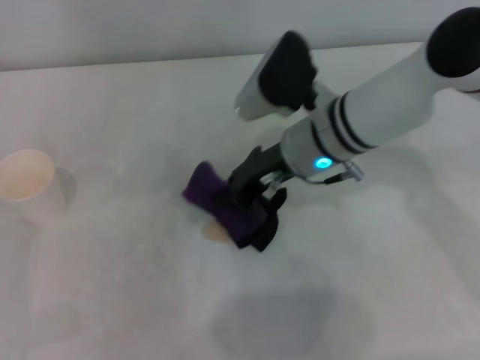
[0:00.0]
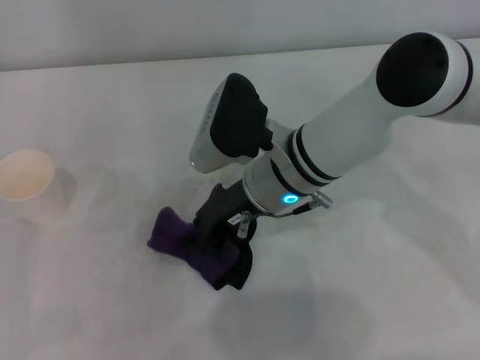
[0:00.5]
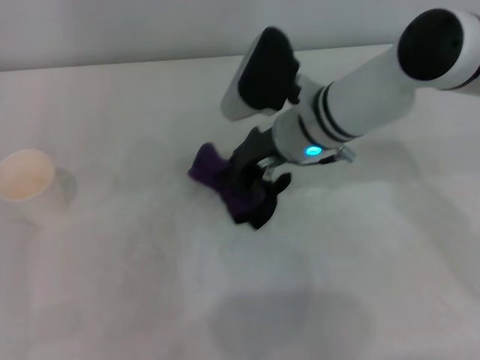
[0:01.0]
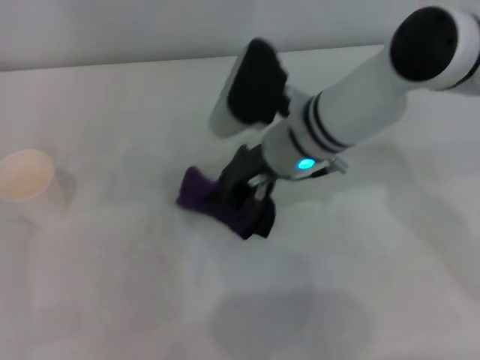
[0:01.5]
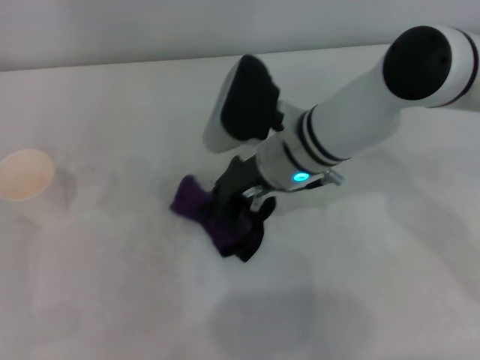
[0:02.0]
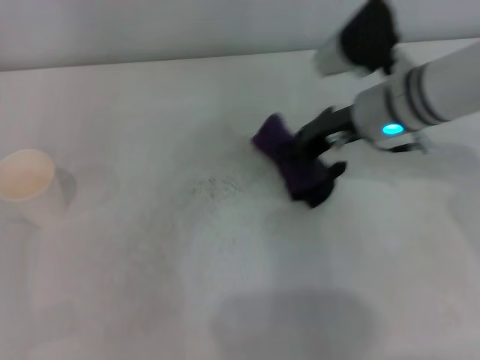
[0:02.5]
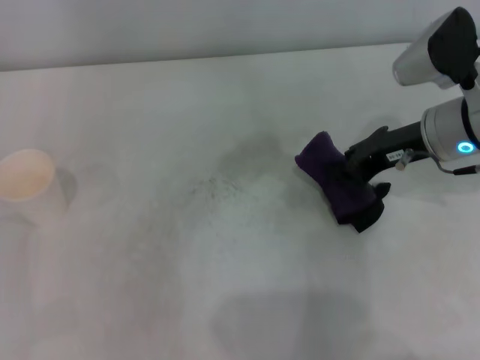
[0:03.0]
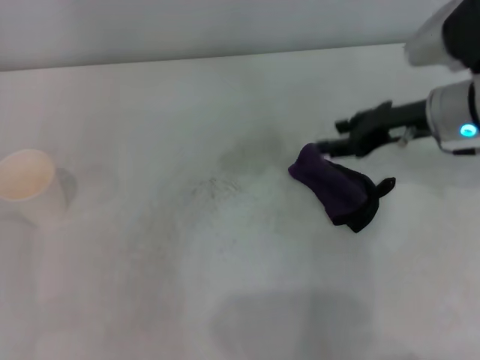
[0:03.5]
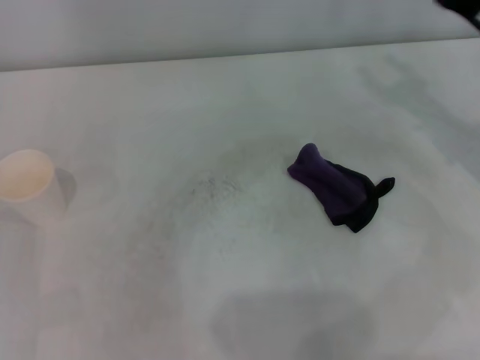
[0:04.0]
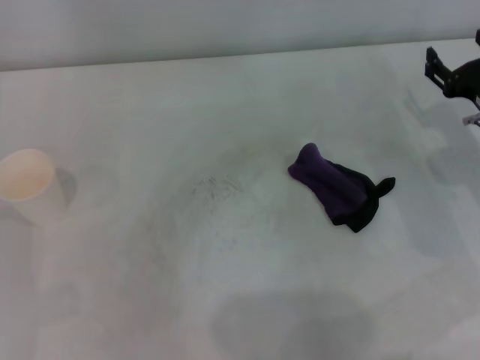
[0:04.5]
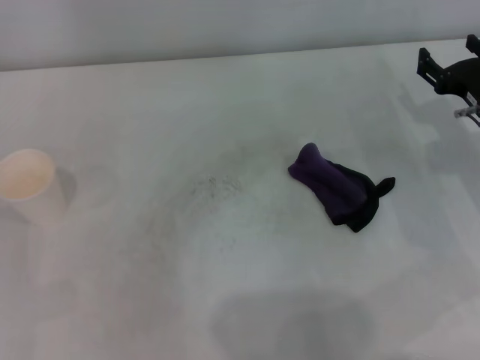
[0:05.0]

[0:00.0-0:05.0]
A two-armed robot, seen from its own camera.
Step, 0:00.0 to 0:02.0: Wipe the stains off the table with the right gripper.
Step, 0:02.5 to 0:03.0: Place the rag on the table with the right gripper.
0:00.0 to 0:02.5: The right gripper moves to the right, some 10 cm.
0:02.5 to 0:05.0: The right gripper is displaced to the right and downward by some 15 cm, and opens up.

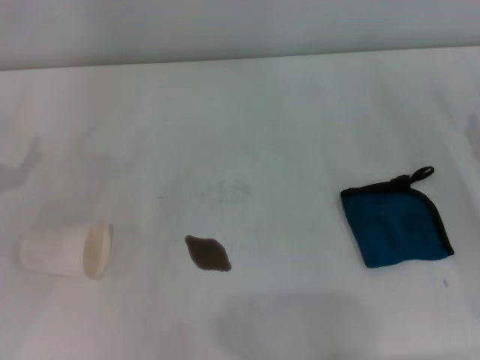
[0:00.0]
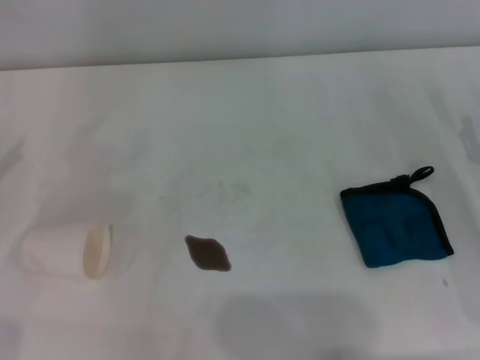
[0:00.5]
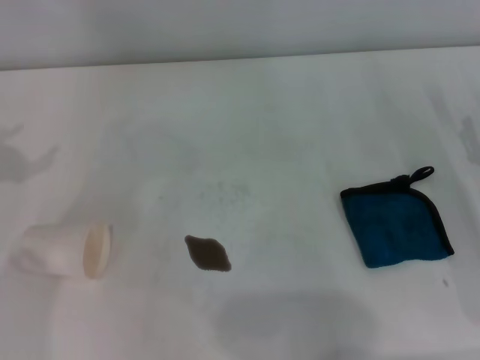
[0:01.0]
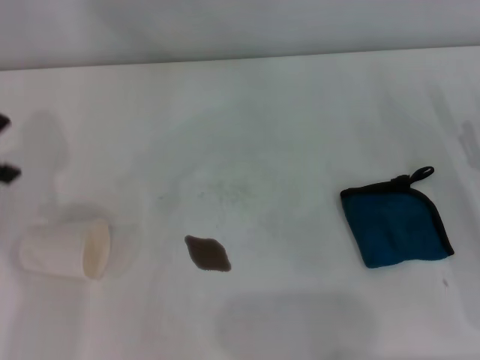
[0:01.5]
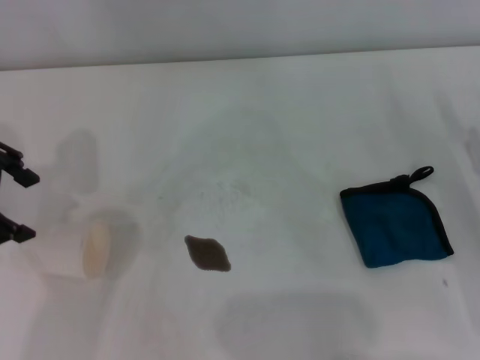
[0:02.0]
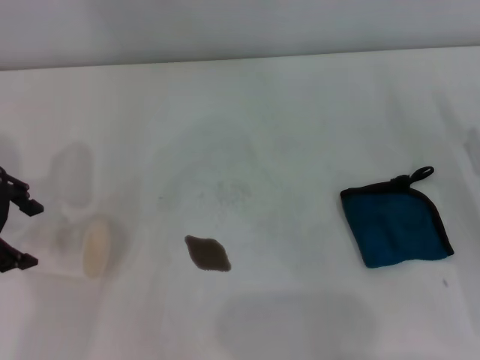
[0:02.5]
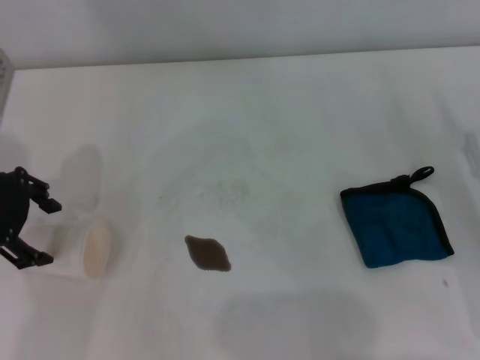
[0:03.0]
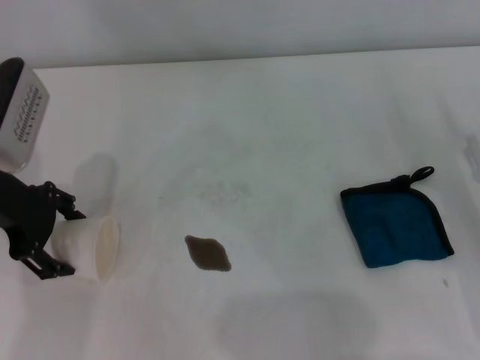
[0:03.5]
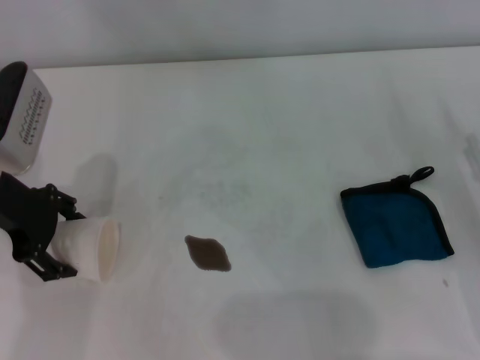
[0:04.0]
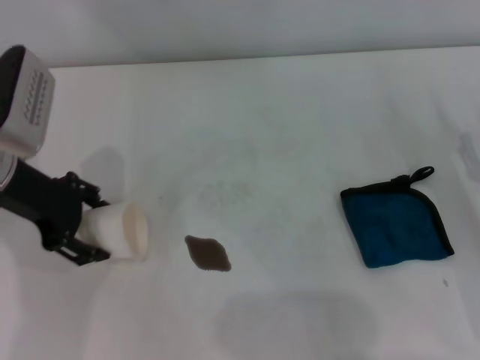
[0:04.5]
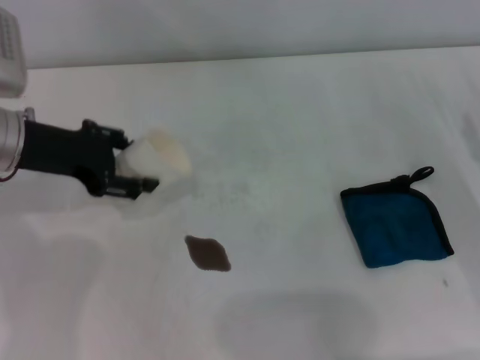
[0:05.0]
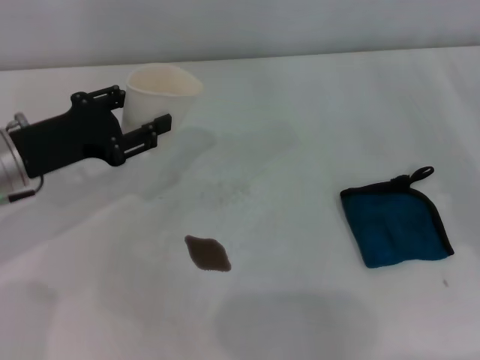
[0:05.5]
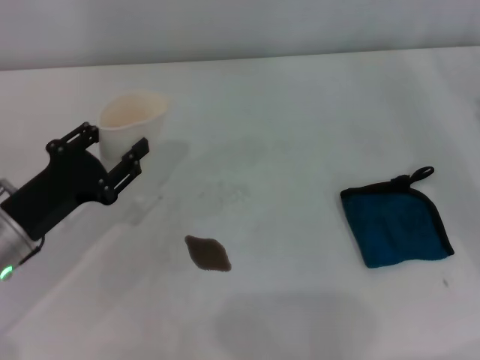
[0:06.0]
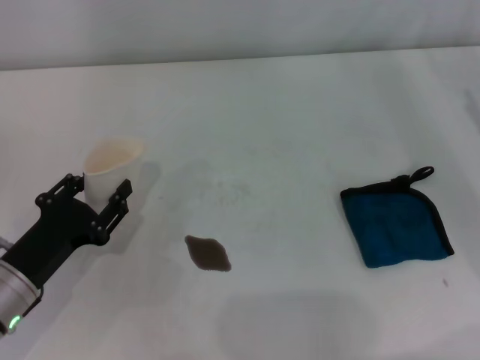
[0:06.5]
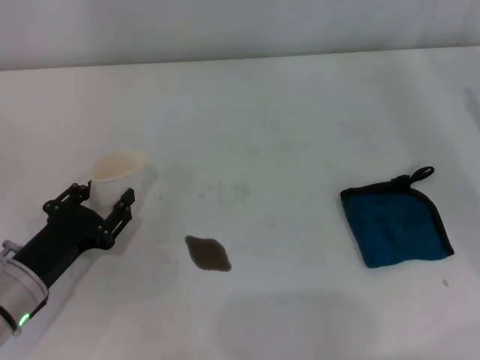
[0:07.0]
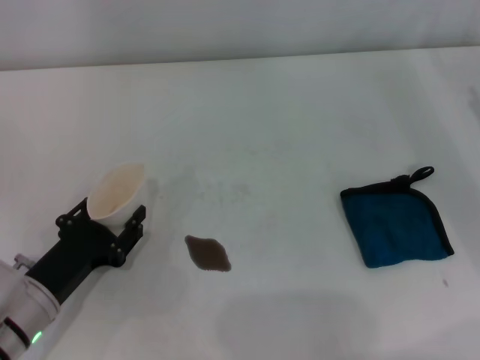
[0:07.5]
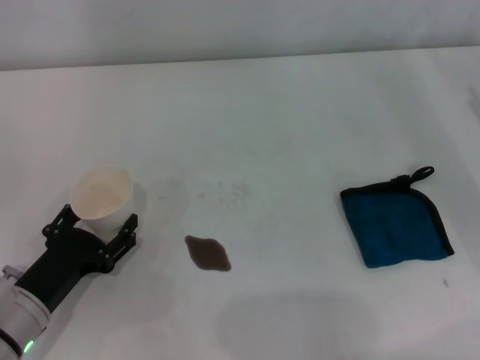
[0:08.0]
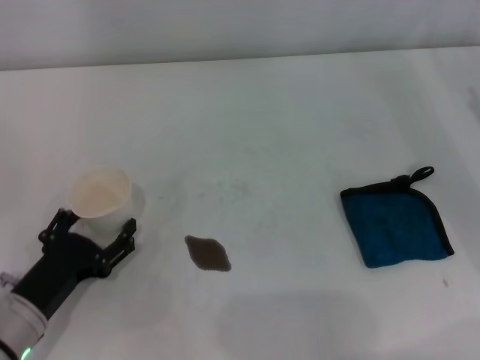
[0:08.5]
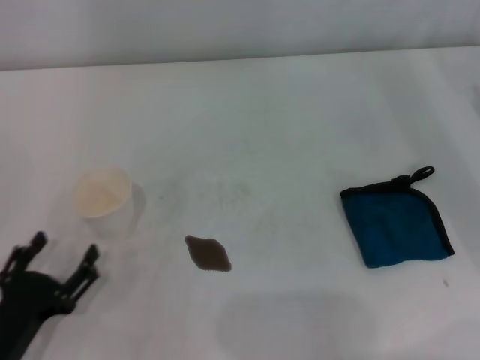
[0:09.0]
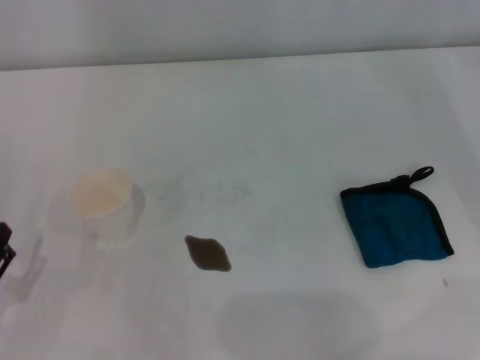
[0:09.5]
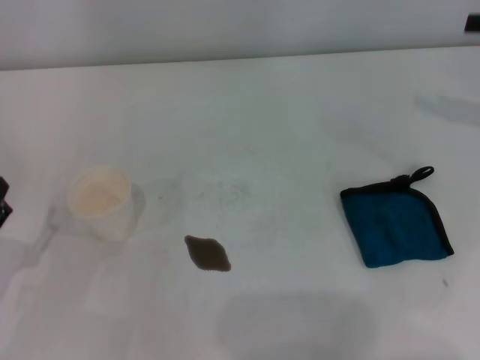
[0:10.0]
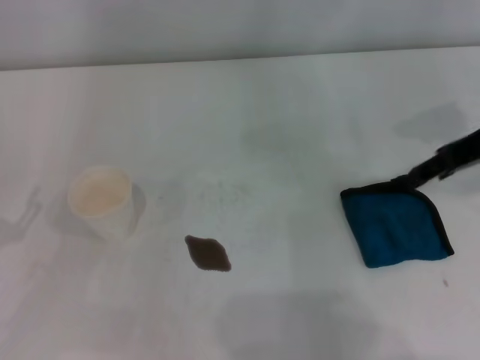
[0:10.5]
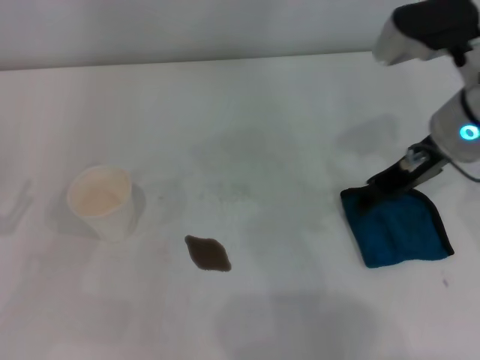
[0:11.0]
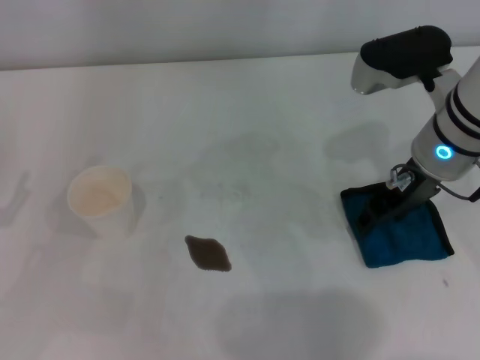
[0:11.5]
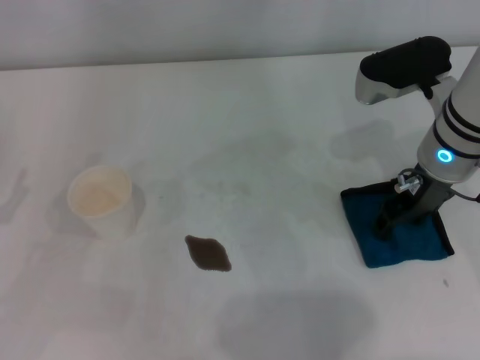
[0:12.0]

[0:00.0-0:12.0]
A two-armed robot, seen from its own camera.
Step, 0:00.0 to 0:03.0: Grasp the paper cup with the left gripper.
Step, 0:03.5 to 0:08.5: Stand the paper cup upright with the left gripper.
0:00.0 to 0:02.0: The left gripper travels upward, forward and to the right by about 20 cm.
0:02.0 to 0:04.0: The left gripper is displaced downward by roughly 10 cm.
0:04.0 to 0:06.0: The left gripper shifts about 15 cm backward and downward, and closes up.
0:06.0 to 0:08.0: The left gripper is displaced downward and backward by some 10 cm.
0:08.0 to 0:10.0: The left gripper goes about 5 cm to the left, and opens its fingers.
0:10.0 to 0:12.0: The right gripper is displaced to the left by some 20 cm.

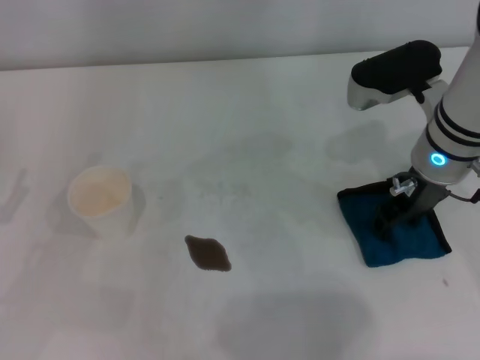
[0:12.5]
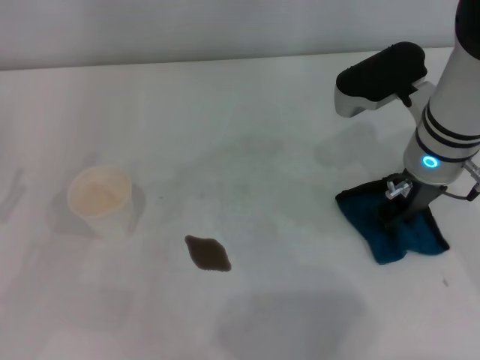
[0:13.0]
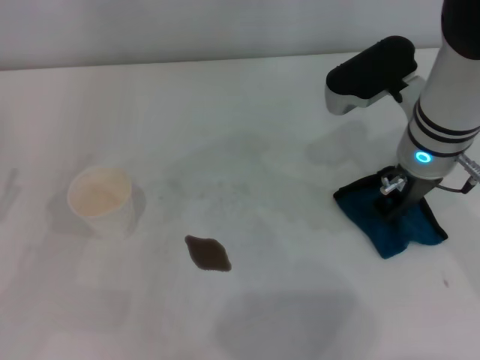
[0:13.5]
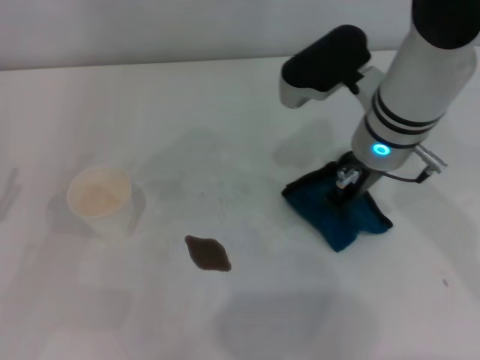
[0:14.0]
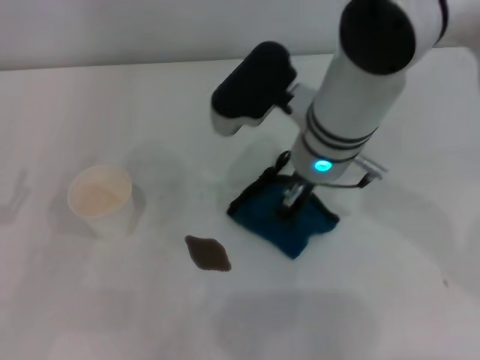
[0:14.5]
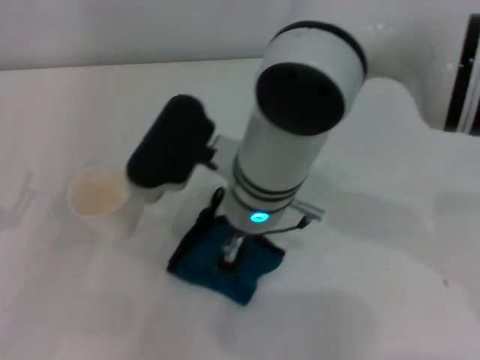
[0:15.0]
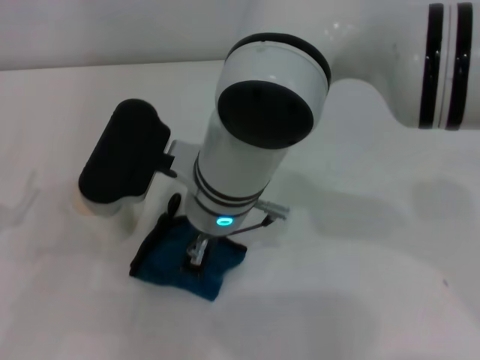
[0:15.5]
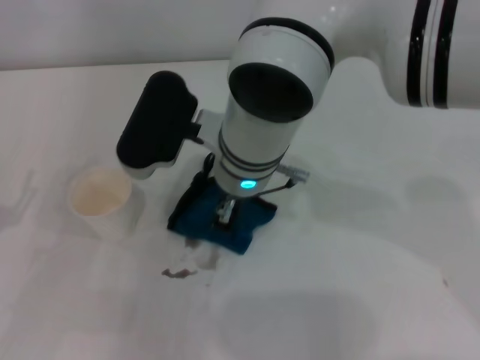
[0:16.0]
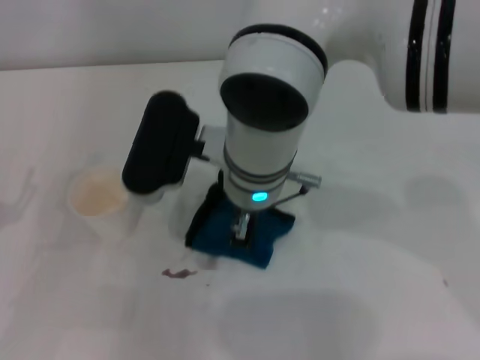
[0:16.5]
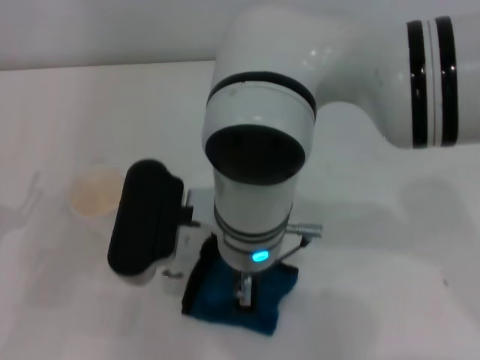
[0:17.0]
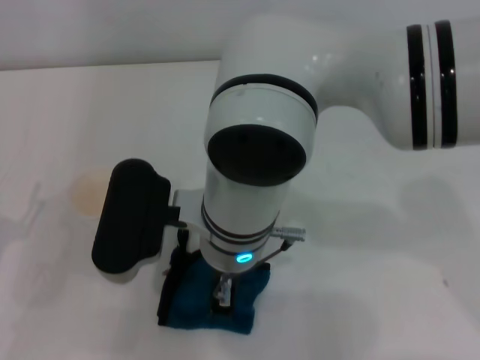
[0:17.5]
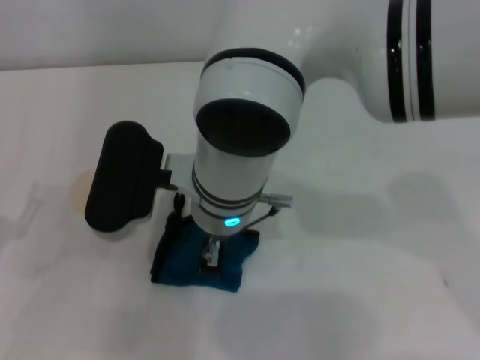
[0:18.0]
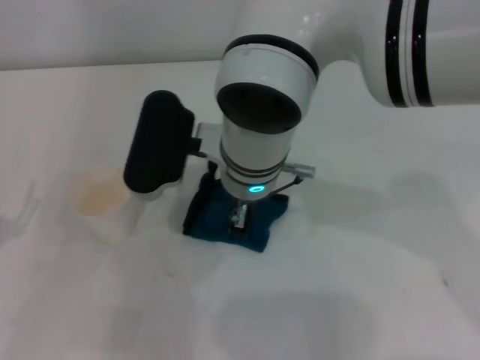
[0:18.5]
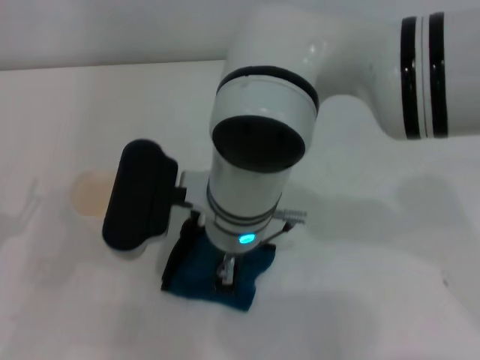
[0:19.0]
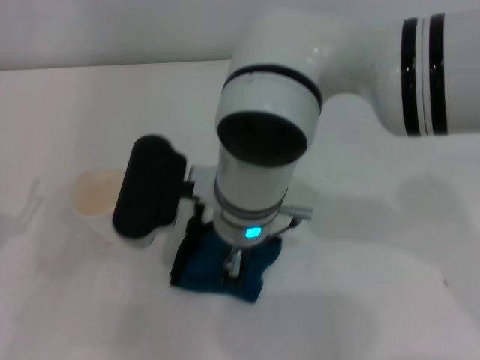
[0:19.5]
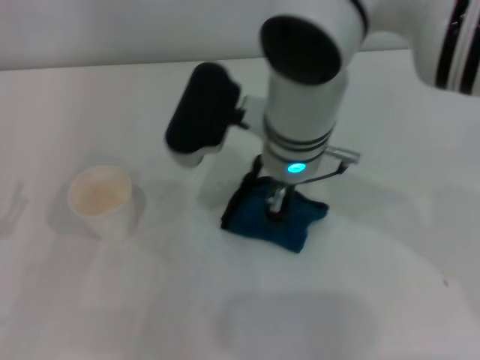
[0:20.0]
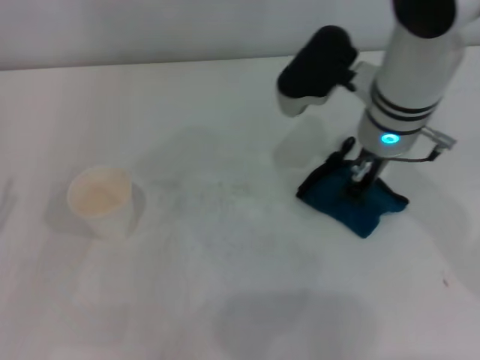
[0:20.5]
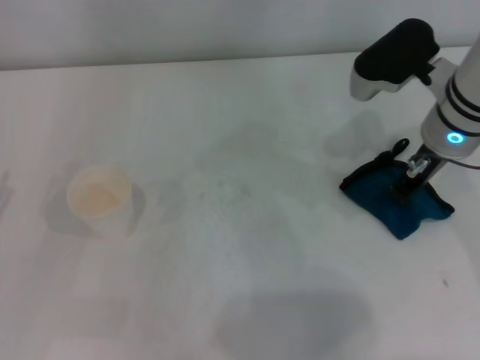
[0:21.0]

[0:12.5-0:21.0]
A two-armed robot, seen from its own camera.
Step, 0:13.5 to 0:20.0: Wipe the stains off the table with the right gripper.
0:12.5 to 0:14.5: The right gripper goes about 10 cm to the left, and closes up.
0:14.5 to 0:16.5: The right gripper goes roughly 10 cm to the left.
0:16.5 to 0:19.0: The right gripper goes forward and backward, some 5 cm each way, reversing 2 times.
0:19.0 to 0:21.0: The right gripper moves to the right, roughly 20 cm.
